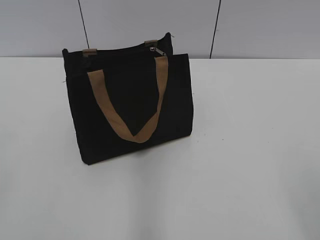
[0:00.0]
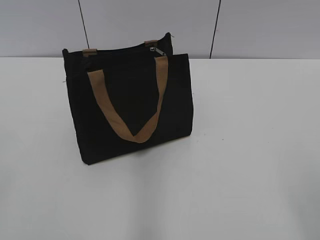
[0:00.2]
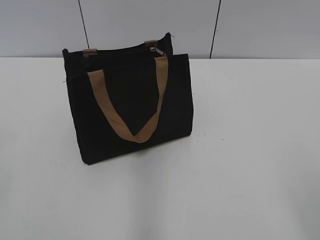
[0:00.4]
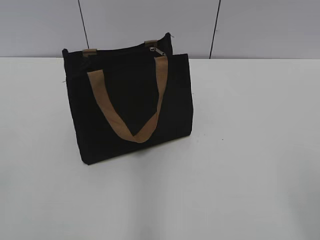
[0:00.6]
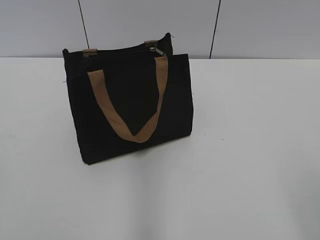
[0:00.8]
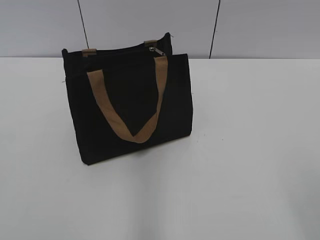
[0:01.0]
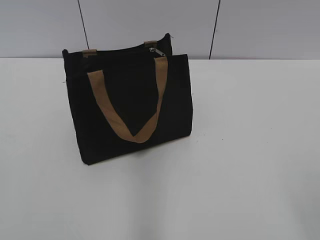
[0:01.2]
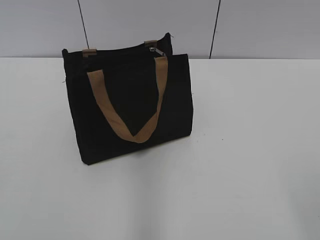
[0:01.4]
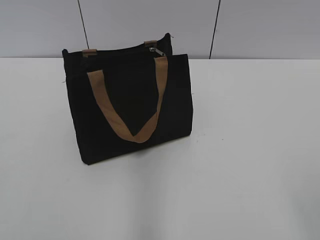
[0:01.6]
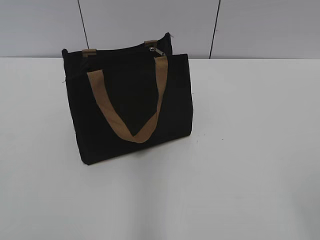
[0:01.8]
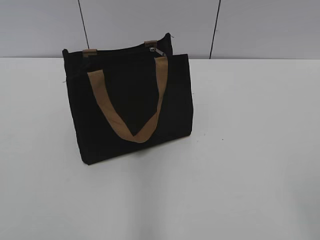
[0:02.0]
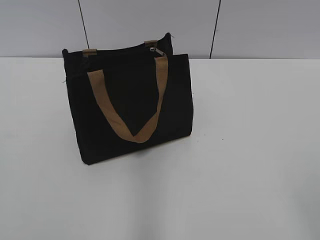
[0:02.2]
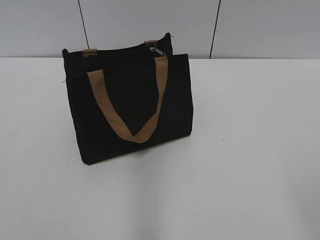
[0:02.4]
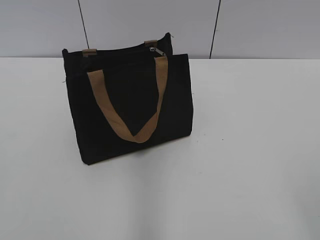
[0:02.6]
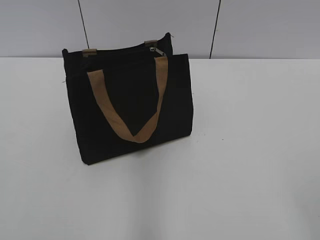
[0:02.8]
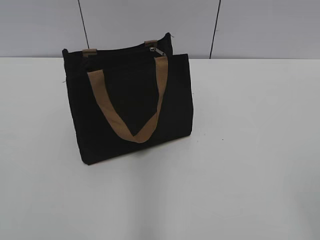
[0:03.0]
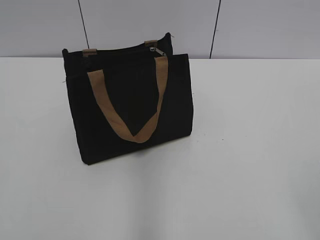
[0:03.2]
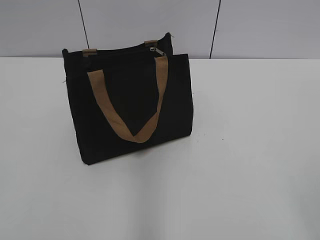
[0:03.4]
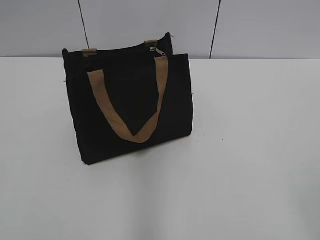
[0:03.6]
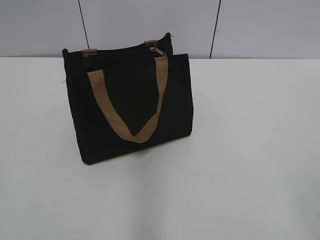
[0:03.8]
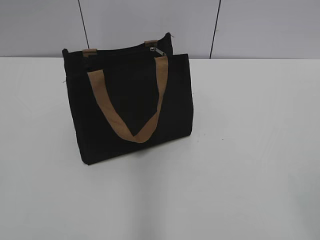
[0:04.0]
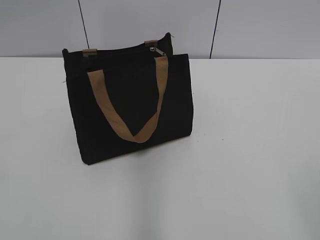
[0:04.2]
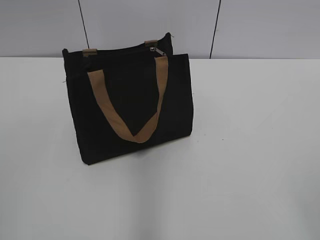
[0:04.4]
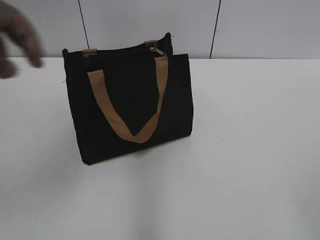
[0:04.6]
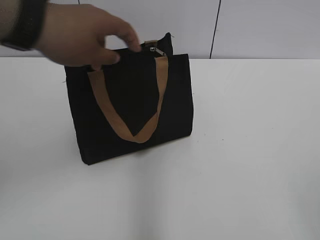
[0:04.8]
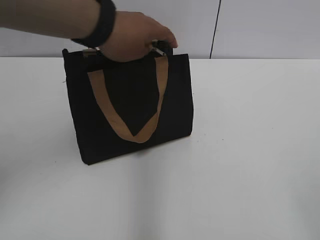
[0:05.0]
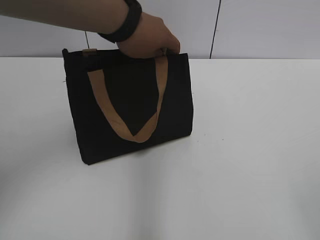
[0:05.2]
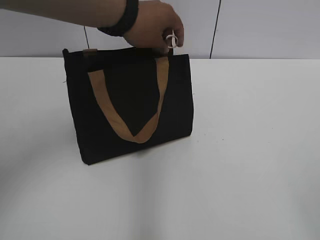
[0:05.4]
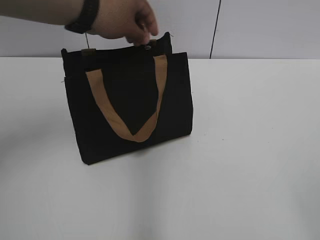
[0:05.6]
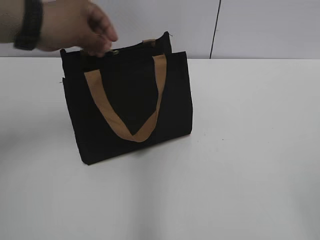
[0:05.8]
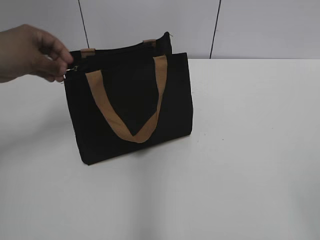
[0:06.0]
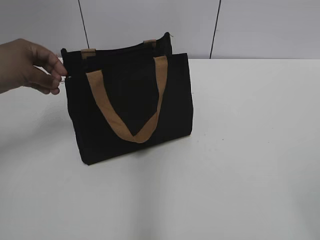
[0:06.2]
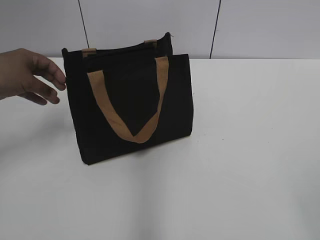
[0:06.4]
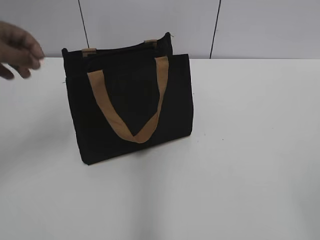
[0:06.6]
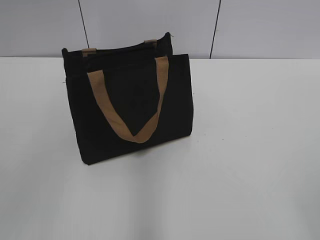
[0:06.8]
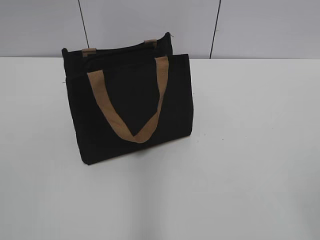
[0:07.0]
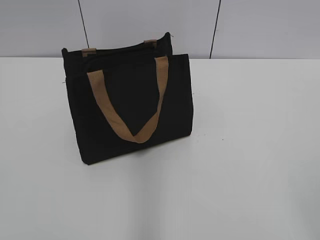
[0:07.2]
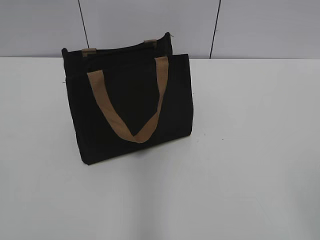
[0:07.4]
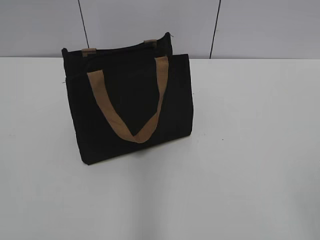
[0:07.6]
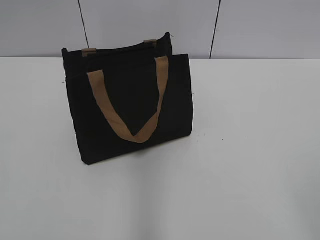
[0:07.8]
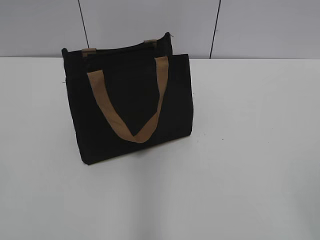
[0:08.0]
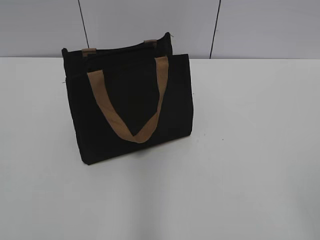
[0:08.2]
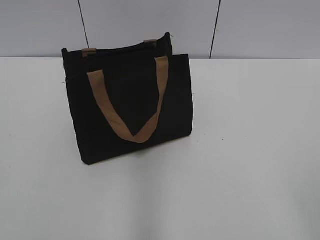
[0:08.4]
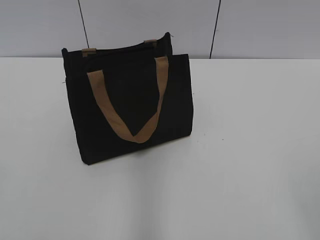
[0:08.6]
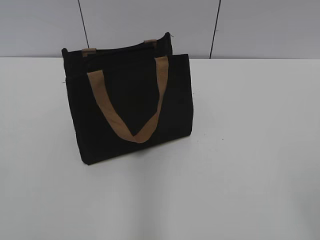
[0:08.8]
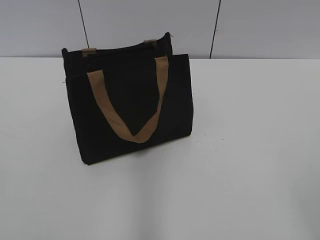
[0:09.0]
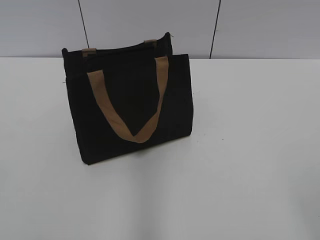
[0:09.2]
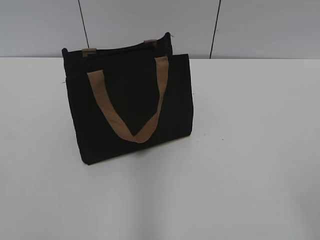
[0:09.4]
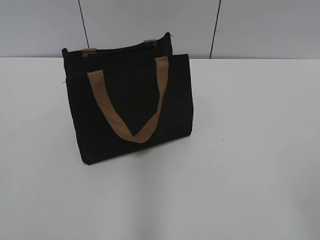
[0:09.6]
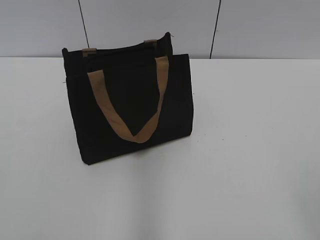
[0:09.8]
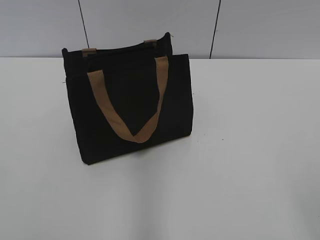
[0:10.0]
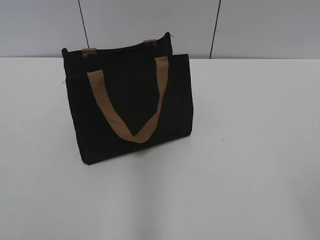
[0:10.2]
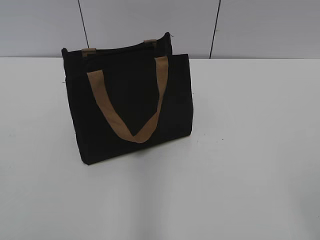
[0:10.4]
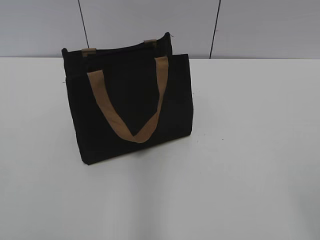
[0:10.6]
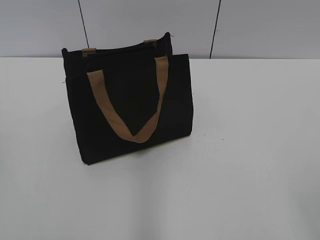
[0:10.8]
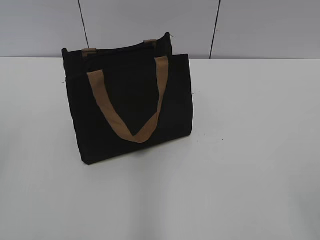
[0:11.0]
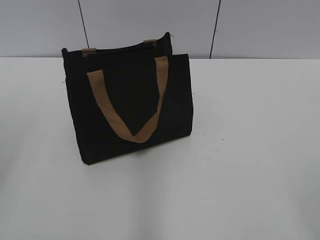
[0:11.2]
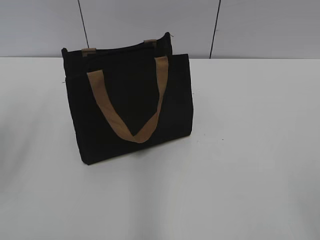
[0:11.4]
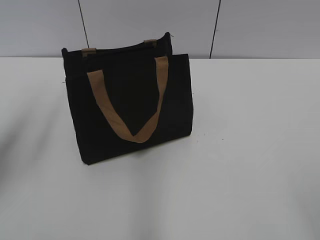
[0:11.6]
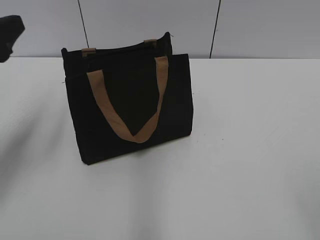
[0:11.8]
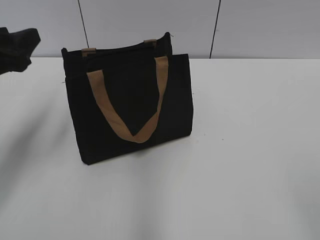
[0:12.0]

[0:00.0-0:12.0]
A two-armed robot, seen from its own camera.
0:03.0 to 0:10.4: The two grippers keep their place.
0:10.4 to 0:12.0: The left gripper goes some 25 cm forward, and opens.

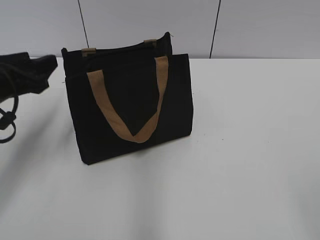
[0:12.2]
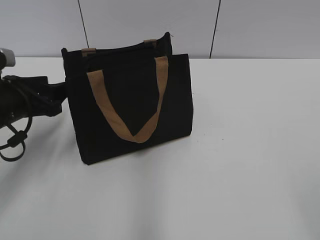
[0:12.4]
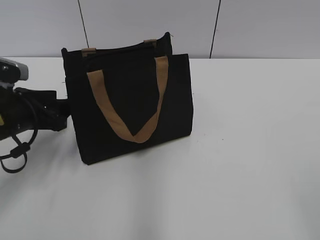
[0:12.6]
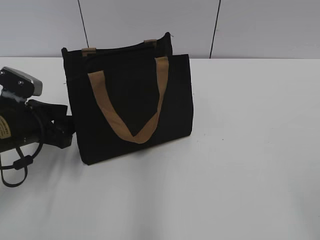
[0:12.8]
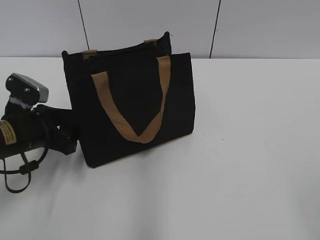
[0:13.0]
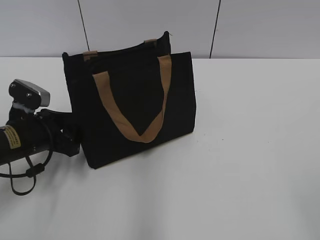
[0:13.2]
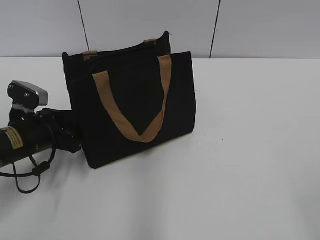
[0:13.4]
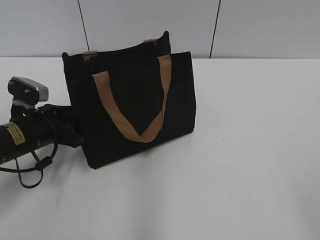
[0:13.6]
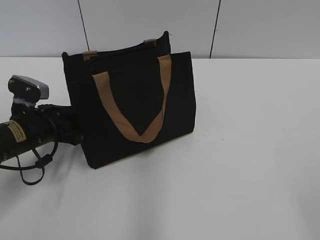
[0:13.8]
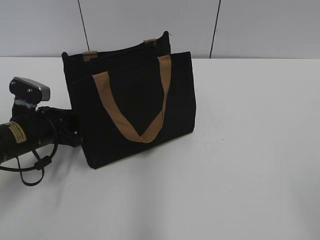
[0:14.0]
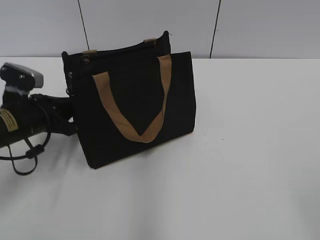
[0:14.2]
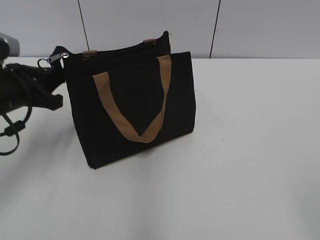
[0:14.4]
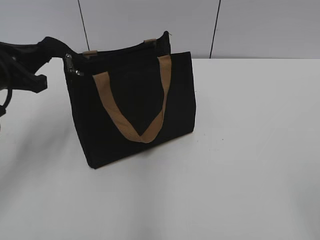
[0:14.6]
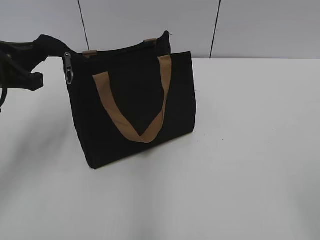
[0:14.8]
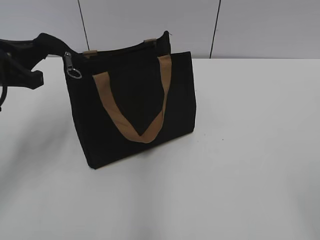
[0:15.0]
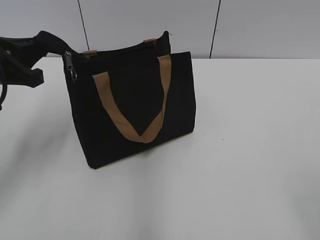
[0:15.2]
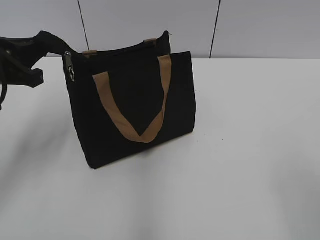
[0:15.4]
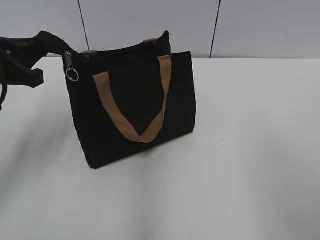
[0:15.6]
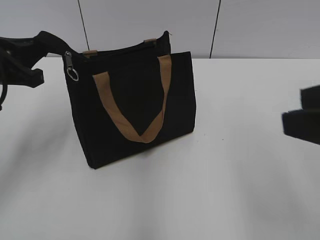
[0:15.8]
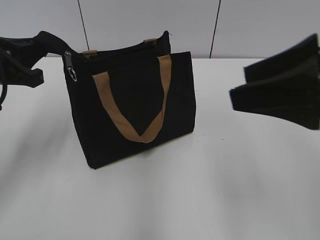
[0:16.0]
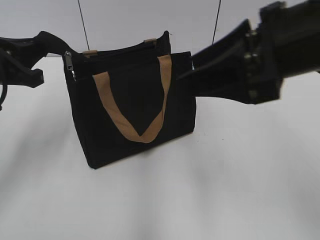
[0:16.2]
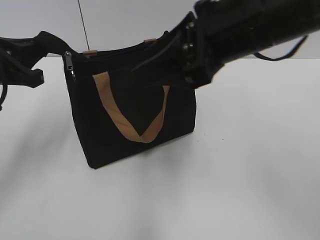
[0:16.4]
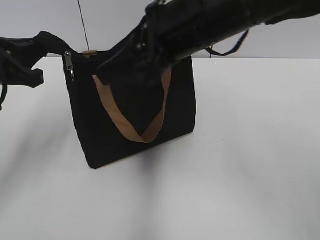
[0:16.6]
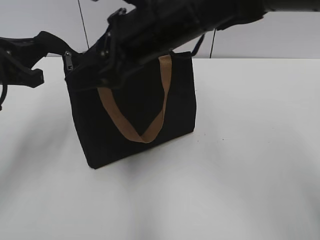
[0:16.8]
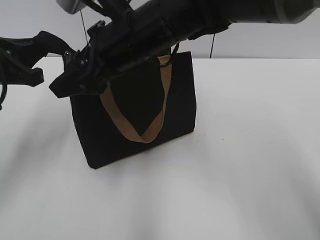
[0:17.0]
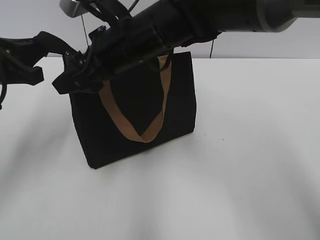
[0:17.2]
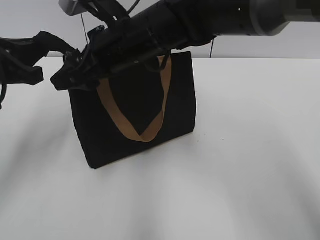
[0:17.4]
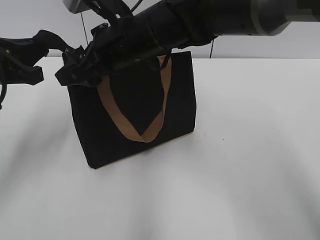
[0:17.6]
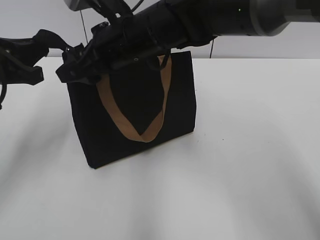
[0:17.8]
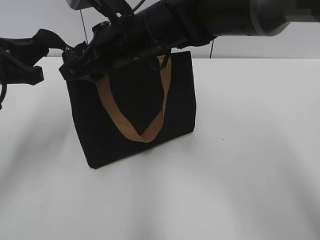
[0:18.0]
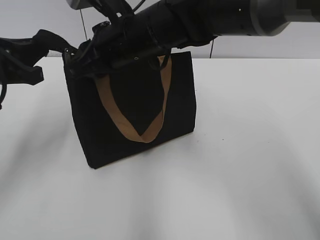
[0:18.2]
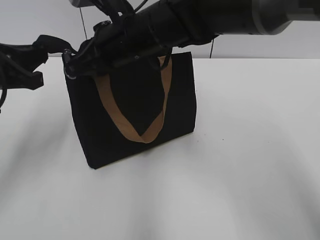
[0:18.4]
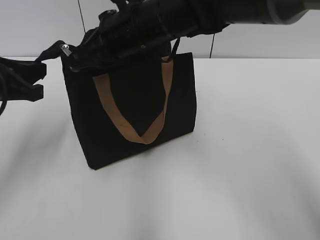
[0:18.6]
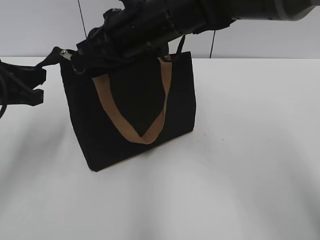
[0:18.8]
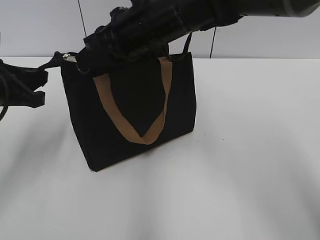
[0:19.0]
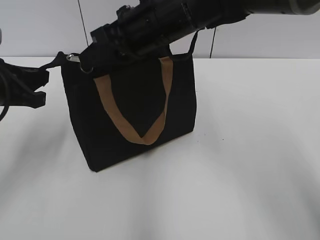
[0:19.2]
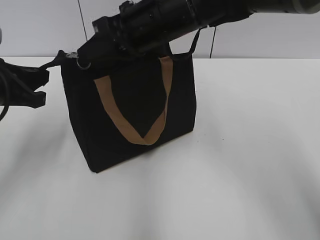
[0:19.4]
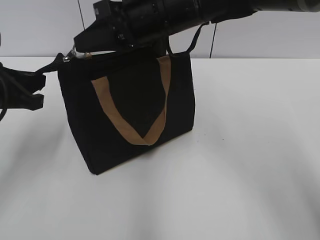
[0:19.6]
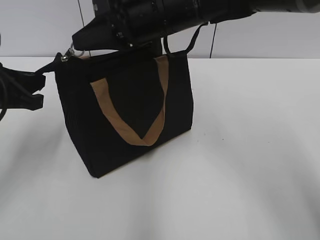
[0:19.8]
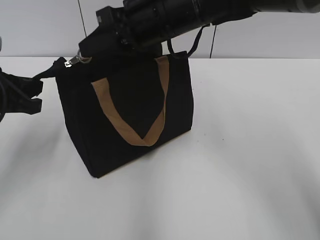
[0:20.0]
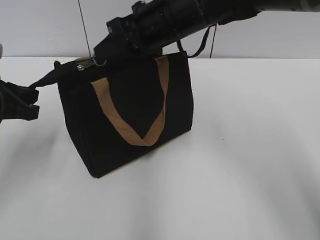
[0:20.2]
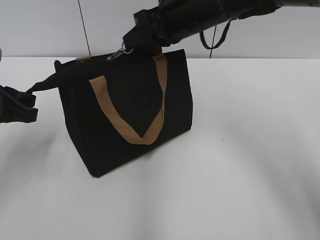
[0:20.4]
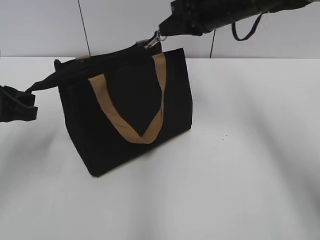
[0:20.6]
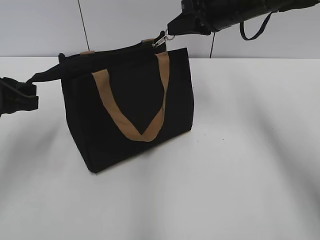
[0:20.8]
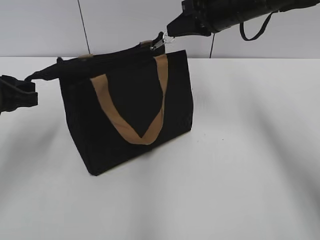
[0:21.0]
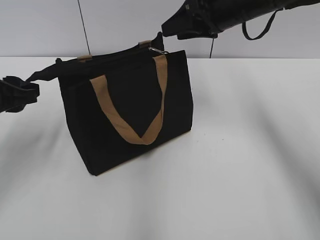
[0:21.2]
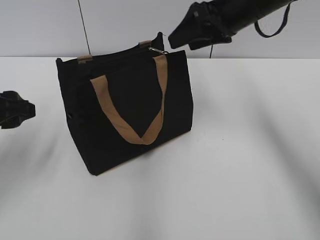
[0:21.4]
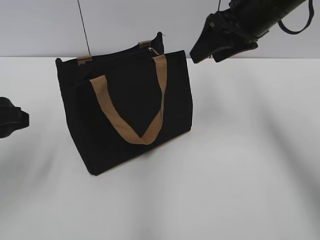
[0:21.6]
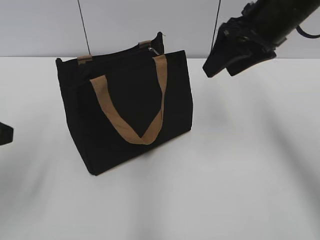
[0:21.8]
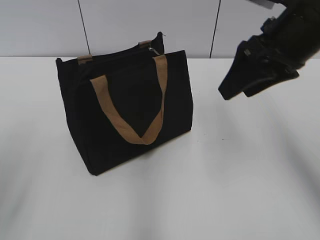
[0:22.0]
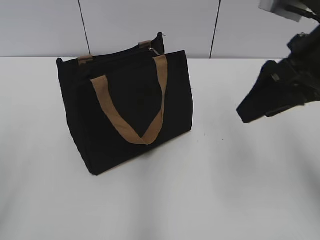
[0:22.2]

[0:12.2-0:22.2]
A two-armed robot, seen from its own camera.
Step, 0:12.2 to 0:21.0: Zip up the bag with your right hand.
Step, 0:21.2 to 0:21.4: Grab the zipper with your left hand.
0:12.2 to 0:13.6: The left gripper travels downward by some 10 cm.
0:13.6 to 0:15.0: The left gripper heads upward, covering roughly 15 cm, and closes.
0:15.0 to 0:16.4: The right gripper heads forward and to the left, covering approximately 30 cm.
0:16.4 to 0:18.0: The right gripper moves to the left, forward and downward, some 20 cm.
0:18.0 to 0:19.4: The right gripper closes.
0:19.4 to 0:20.8: The right gripper is displaced to the right and forward by approximately 15 cm.
0:20.8 to 0:22.2: The right gripper moves backward, about 15 cm, and opens. Meanwhile the left gripper goes some 15 cm backward and upward, and opens.
